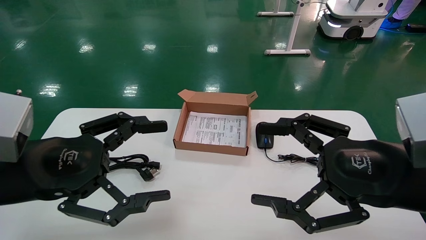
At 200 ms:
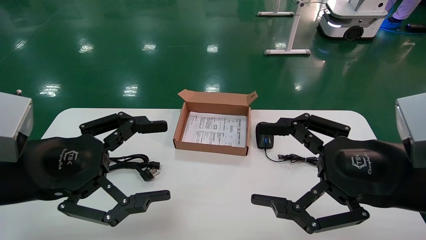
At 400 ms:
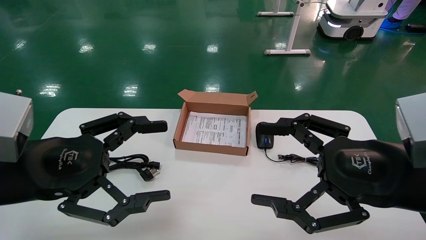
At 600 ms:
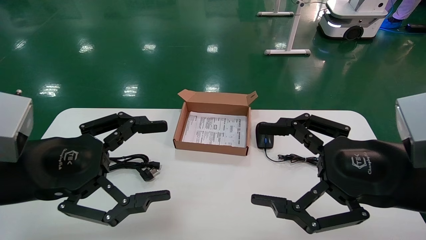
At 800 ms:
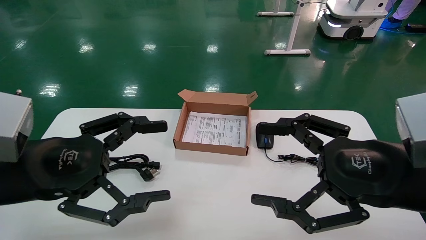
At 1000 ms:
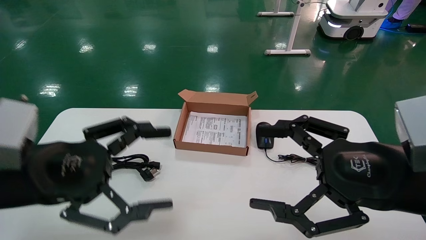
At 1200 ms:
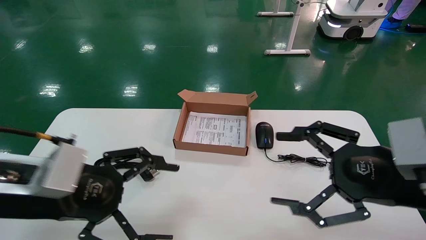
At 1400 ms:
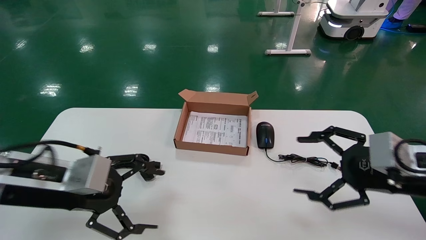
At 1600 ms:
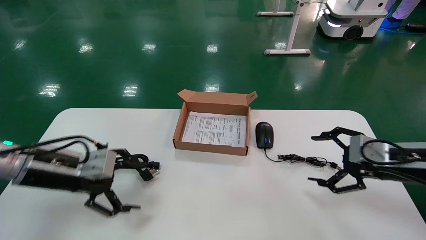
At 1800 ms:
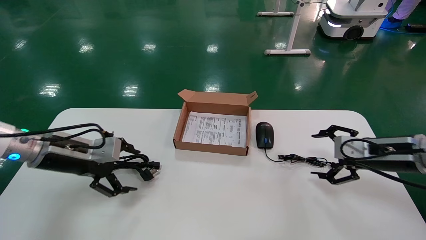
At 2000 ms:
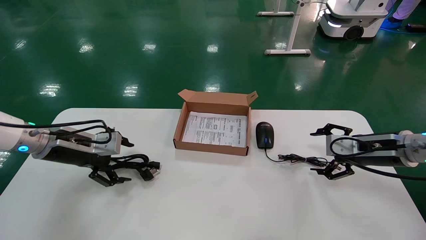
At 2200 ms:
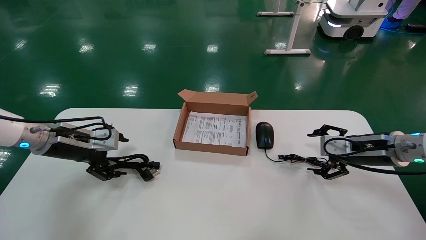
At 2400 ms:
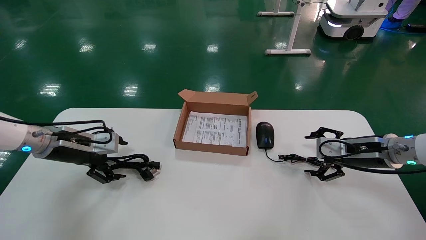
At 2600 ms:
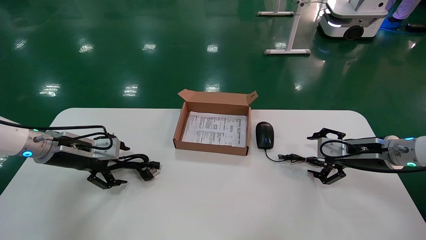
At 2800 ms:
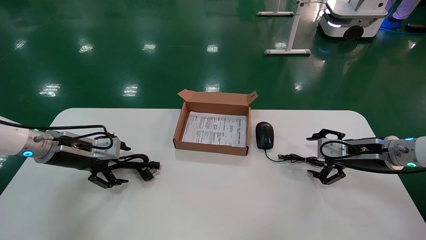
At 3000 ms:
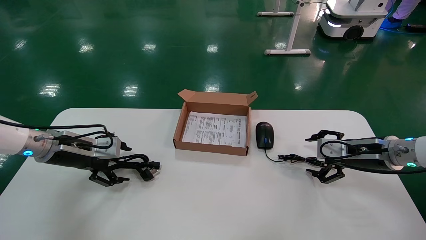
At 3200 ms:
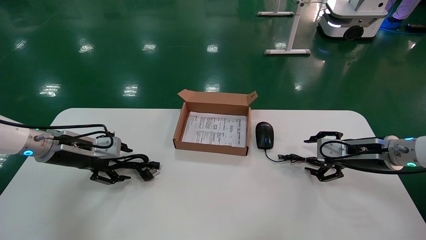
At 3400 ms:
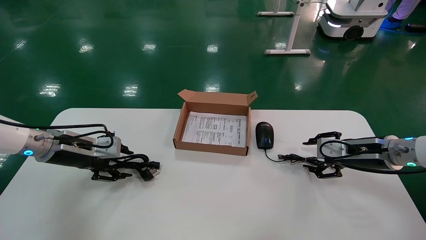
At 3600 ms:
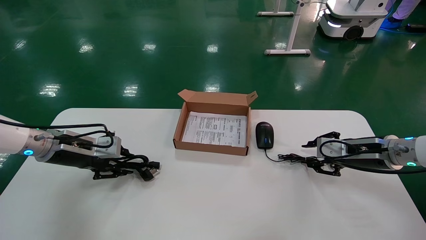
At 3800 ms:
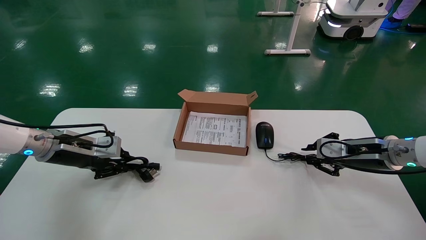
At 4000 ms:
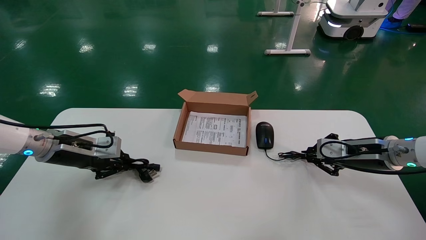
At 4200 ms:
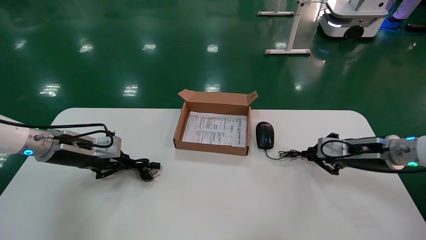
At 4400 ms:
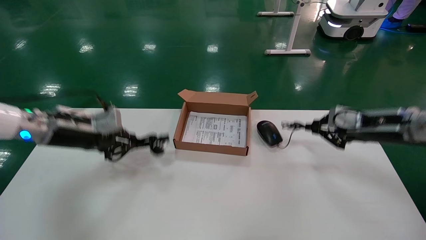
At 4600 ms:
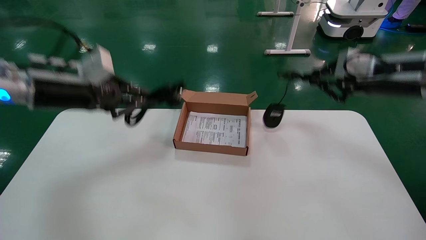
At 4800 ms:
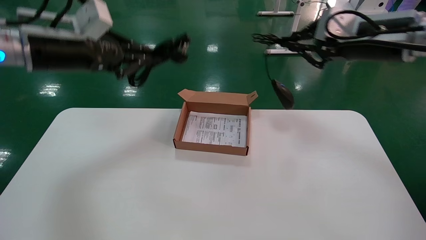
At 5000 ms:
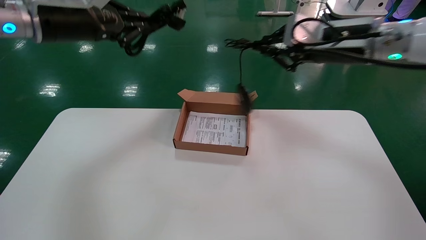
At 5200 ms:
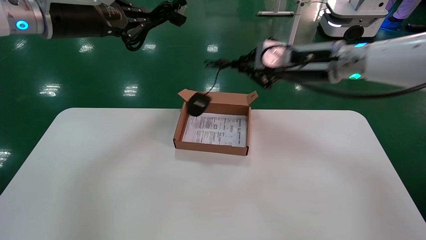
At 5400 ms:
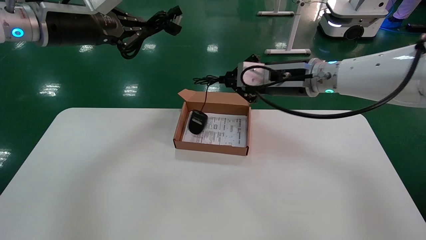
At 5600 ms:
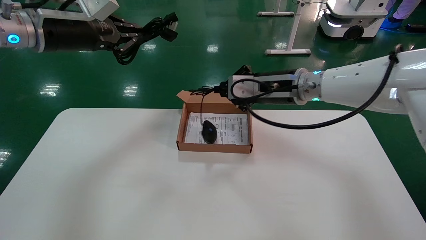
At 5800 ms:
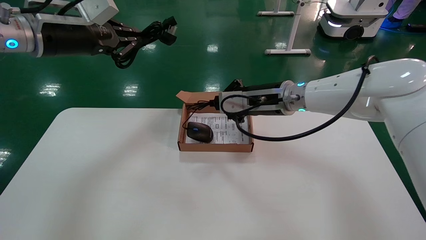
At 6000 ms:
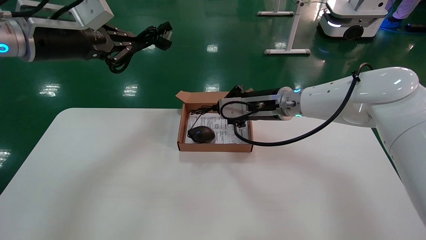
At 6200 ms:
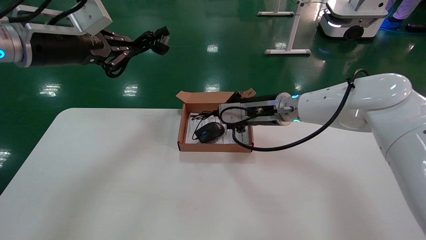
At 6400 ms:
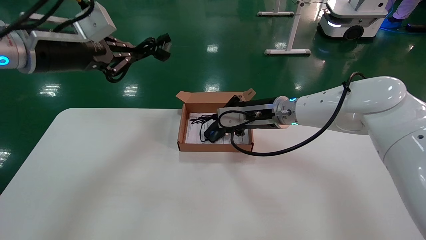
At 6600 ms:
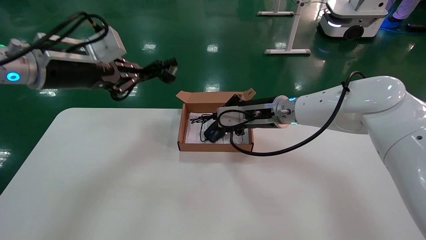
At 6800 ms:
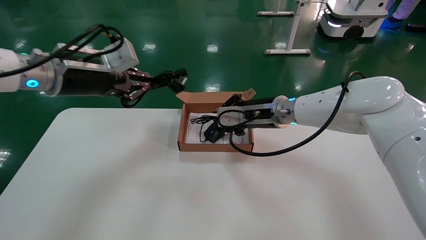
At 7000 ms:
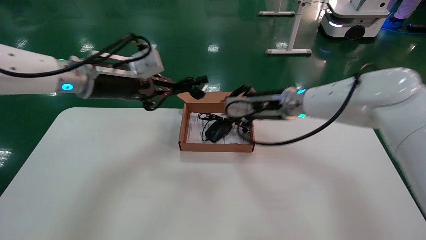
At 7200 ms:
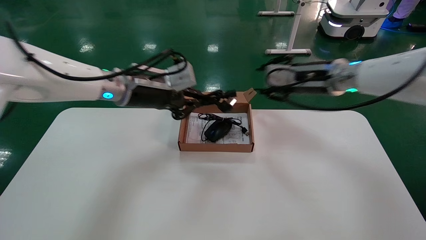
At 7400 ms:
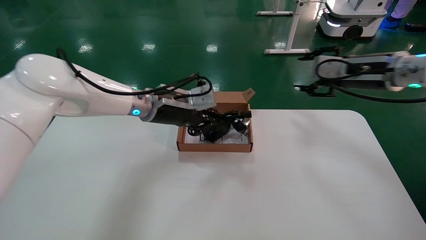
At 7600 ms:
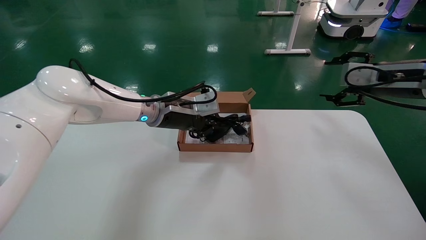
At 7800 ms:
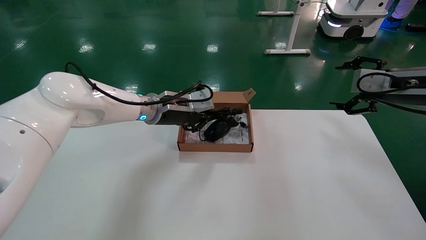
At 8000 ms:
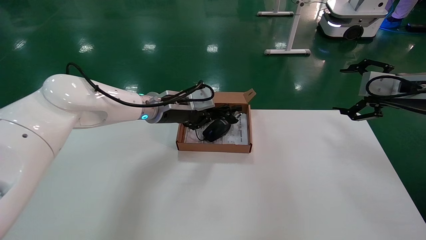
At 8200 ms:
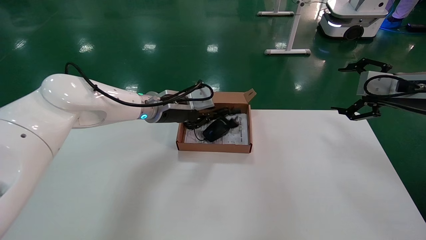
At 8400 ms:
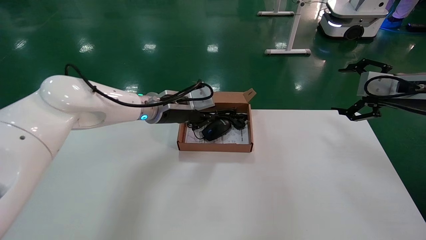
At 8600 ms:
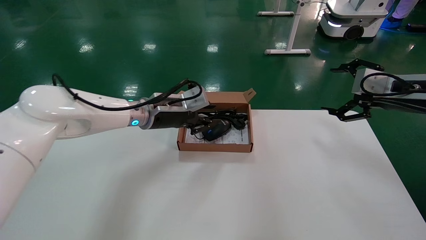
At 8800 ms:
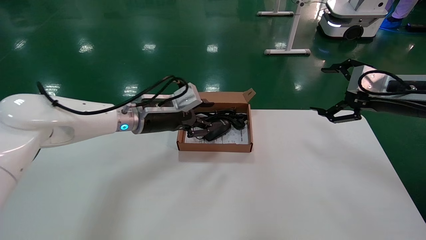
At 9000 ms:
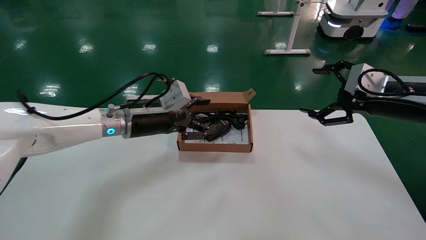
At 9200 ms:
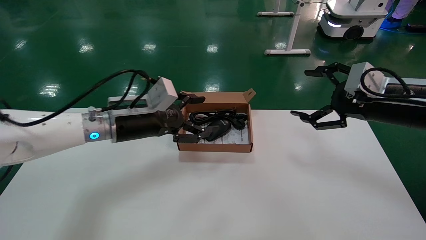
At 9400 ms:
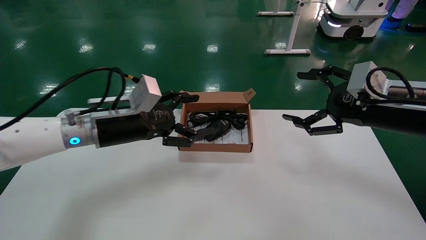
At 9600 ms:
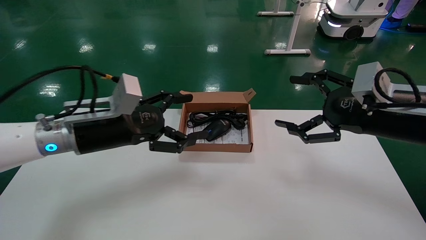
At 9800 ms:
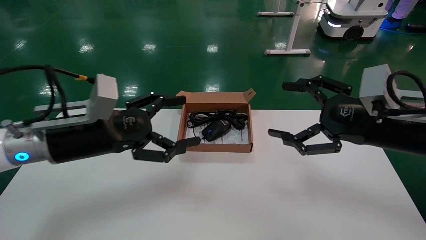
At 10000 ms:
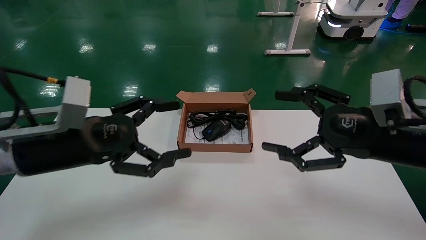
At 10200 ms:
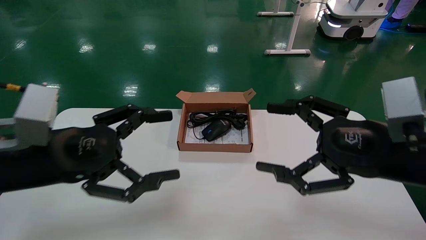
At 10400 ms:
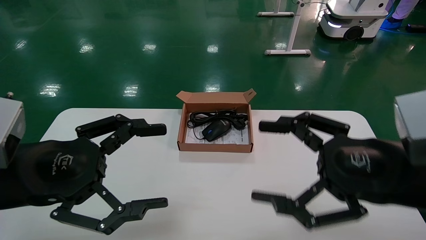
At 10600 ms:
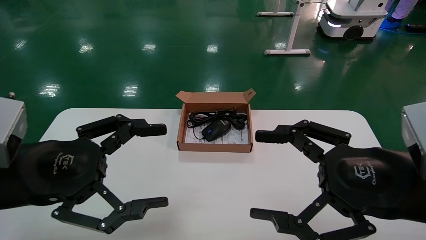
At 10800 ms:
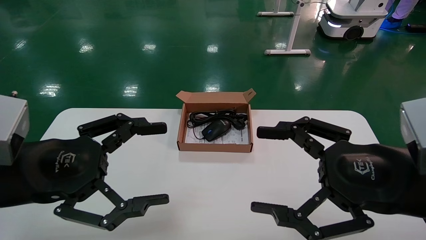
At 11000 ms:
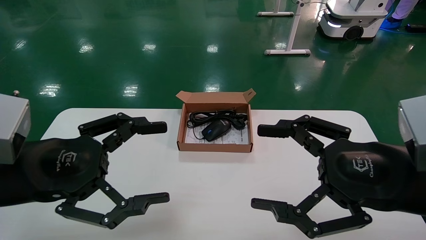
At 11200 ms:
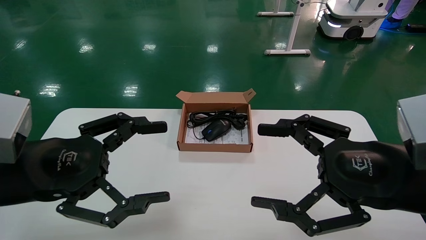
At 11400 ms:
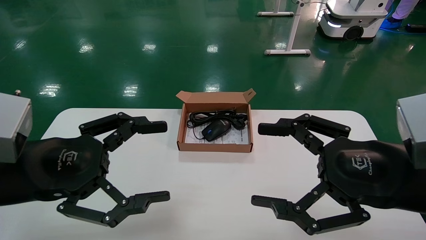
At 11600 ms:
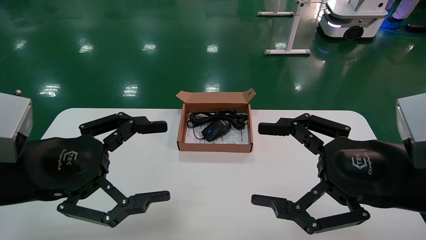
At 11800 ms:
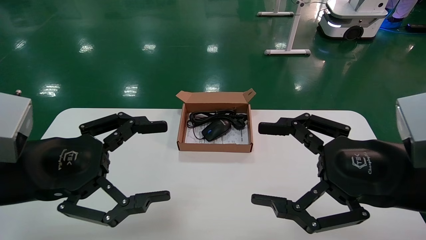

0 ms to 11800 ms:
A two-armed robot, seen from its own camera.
Step, 1400 ms to 4000 ms: Grab and lift both the mouse and power cord from the accessory packaging area at the same time.
Step, 4200 ms to 8600 ms: Place the mouse and power cord into the box.
0 ms to 1400 ms: The right gripper travels forward and to the right by about 10 cm. The left gripper shifts roughly 5 cm forward.
1400 ms to 3000 ms: The right gripper heads forward and downward, covering some 15 cm, while the left gripper heads forward and to the left, covering some 15 cm.
3000 ms to 4400 ms: The two grippers go about 10 cm upward. The right gripper closes up. The left gripper closes its fingers.
4400 ms to 6000 ms: The left gripper travels upward by about 15 cm. The right gripper heads to the left, covering roughly 20 cm.
6000 ms to 7400 ms: The left gripper is displaced to the right, downward and forward by about 20 cm; the right gripper is displaced to the right by some 20 cm, and opens its fingers.
7400 ms to 8800 ms: The left gripper opens its fingers. Meanwhile the right gripper shifts approximately 10 cm backward and to the right, and opens.
8800 ms to 10400 ms: Both grippers move backward and to the left, about 25 cm. The left gripper opens.
10400 ms to 11800 ms: Both grippers stay put.

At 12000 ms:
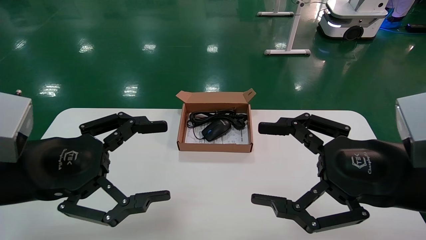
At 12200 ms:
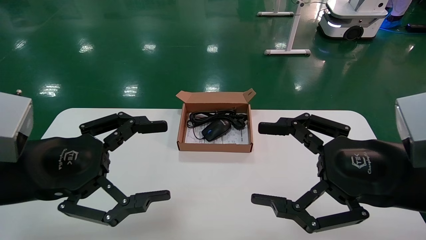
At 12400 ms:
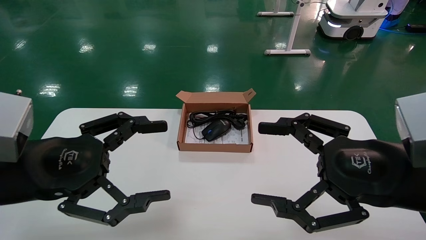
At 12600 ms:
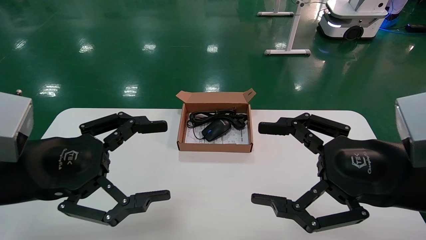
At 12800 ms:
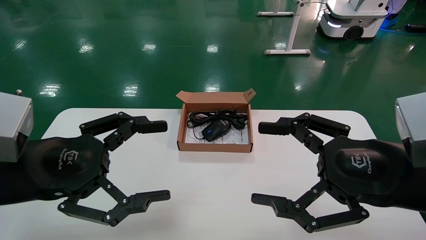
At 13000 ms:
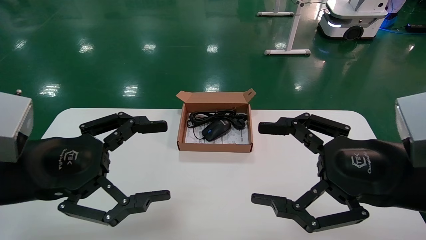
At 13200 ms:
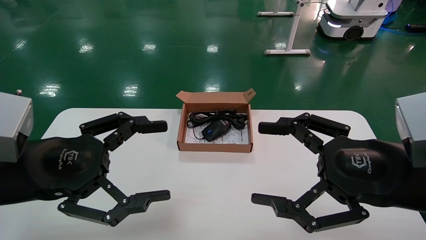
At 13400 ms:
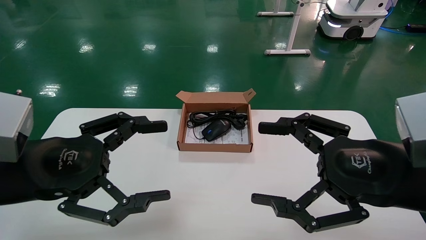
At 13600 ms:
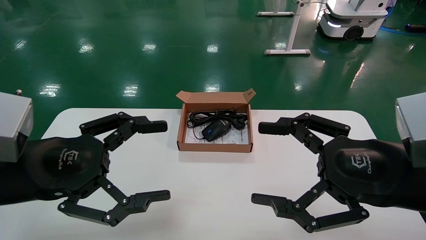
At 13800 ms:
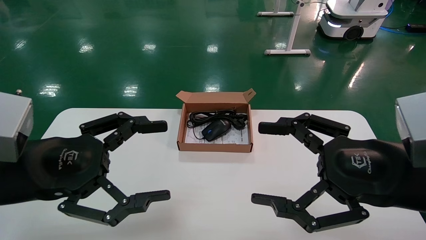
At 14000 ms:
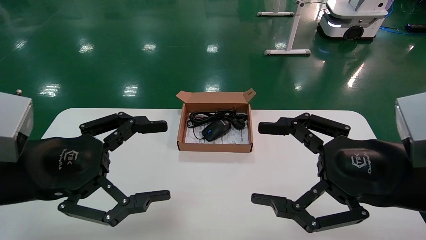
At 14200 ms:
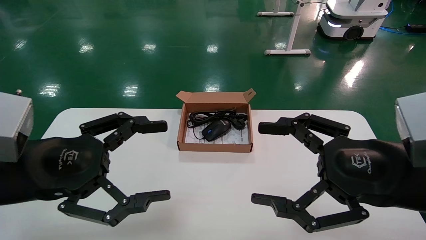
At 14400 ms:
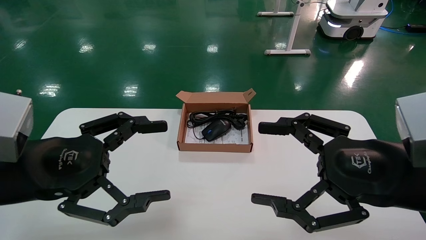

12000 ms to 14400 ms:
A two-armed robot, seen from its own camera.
12000 ms to 14400 ms: Both grippers stay about where they are.
